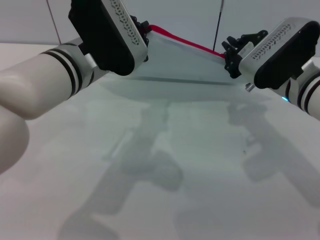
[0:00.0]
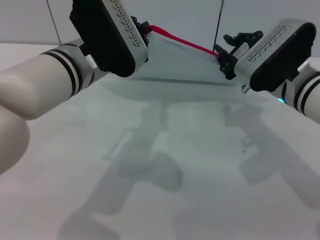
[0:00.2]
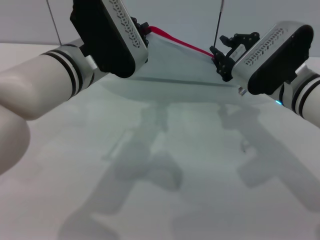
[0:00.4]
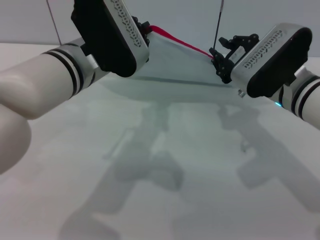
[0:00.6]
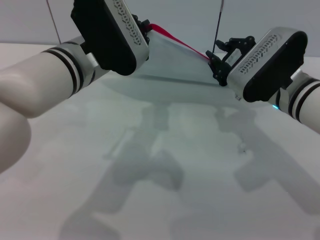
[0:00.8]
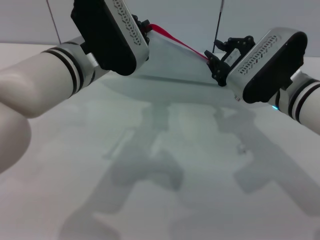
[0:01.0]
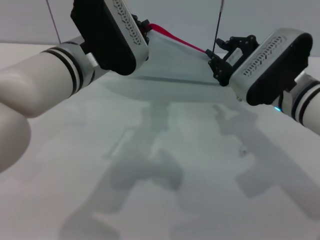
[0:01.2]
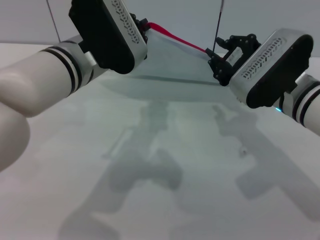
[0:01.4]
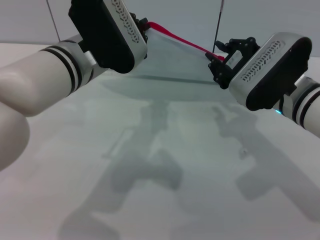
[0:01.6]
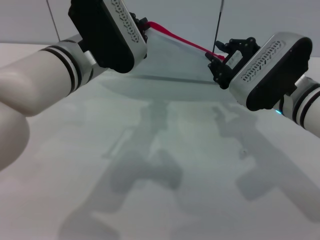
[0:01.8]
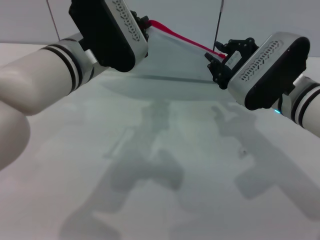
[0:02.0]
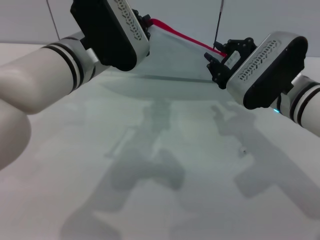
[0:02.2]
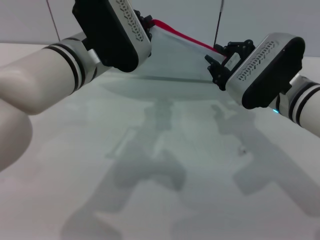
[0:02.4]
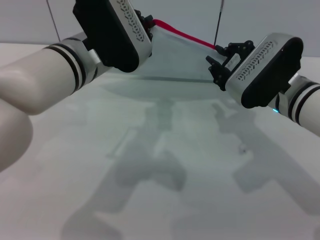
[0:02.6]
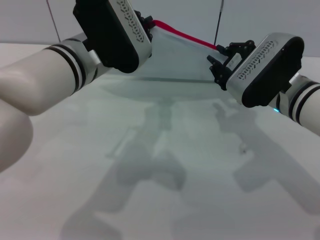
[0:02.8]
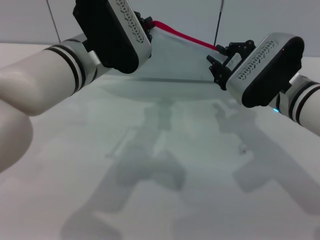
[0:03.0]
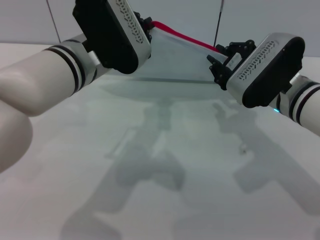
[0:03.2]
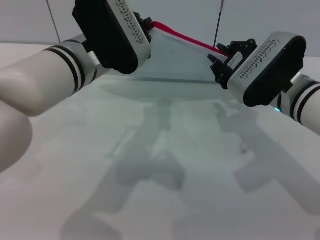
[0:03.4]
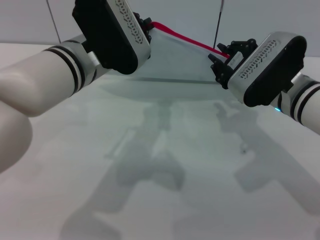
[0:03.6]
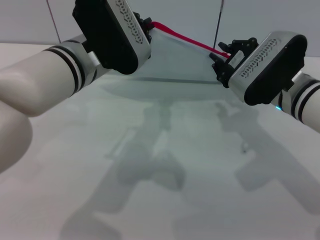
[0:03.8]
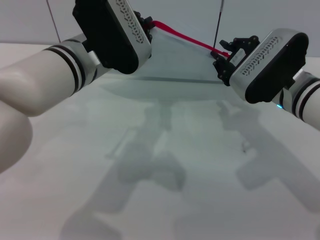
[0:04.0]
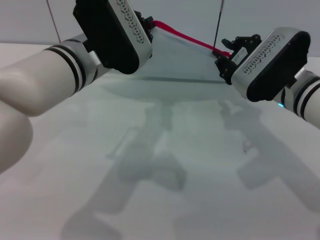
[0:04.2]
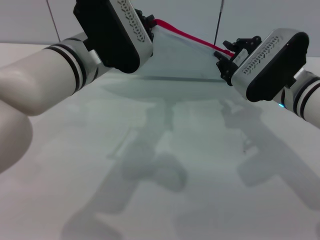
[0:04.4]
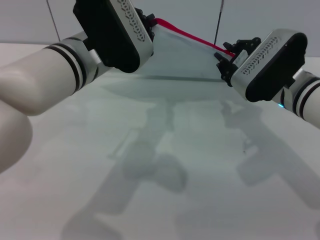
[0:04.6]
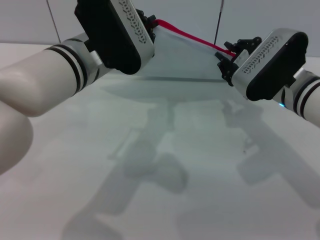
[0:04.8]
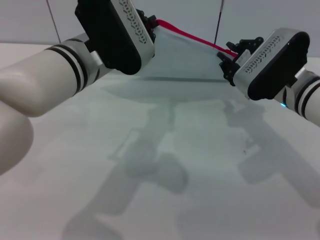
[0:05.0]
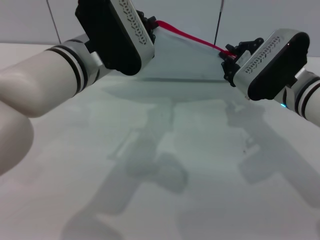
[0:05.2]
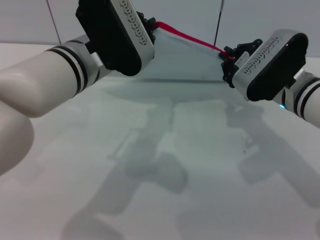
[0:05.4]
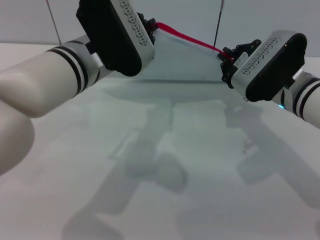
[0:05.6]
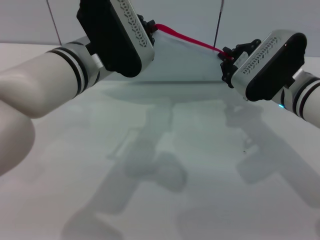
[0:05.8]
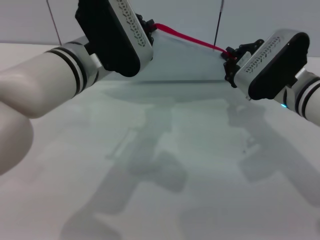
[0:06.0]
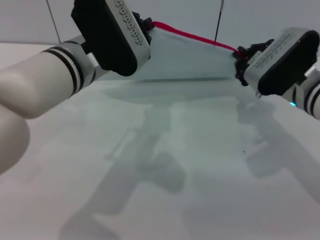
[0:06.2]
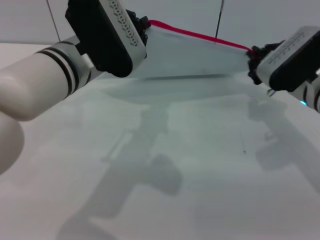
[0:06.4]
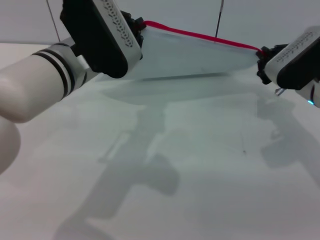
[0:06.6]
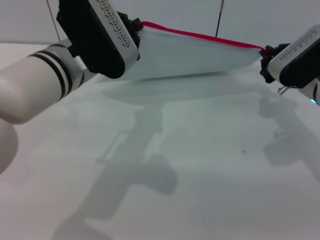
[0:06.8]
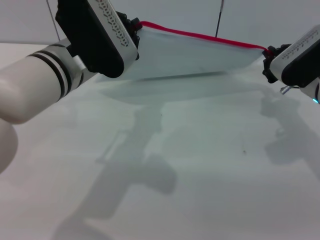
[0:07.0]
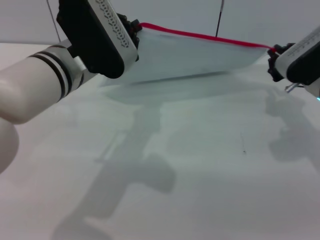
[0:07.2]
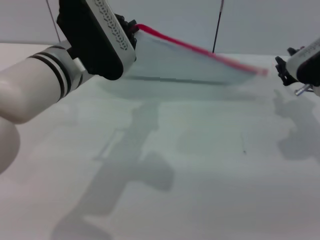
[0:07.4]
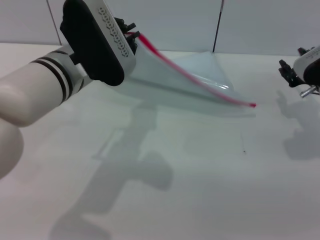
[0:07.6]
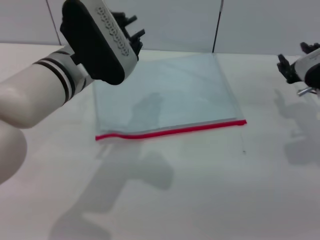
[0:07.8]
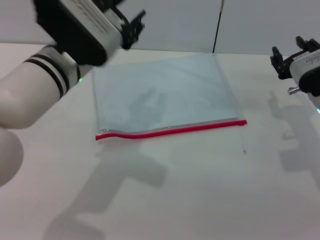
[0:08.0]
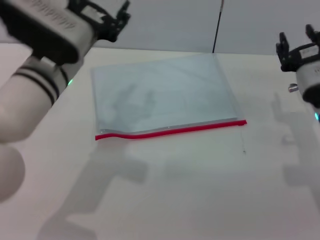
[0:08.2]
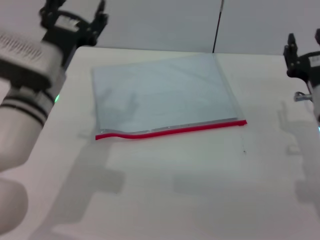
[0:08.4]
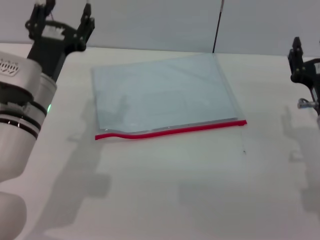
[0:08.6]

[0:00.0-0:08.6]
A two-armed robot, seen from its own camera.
Step, 0:00.0 to 0:07.2: Pulling up the zipper on the transparent plastic bag with the right gripper to close it.
Step, 0:07.4 to 0:07.8: Place the transparent plastic bag.
0:00.0 to 0:02.8: The grippers move only a little.
0:02.8 to 0:04.4: Both grippers stay about where they are.
0:04.4 to 0:05.8: Neither gripper changes place.
0:05.8 to 0:07.2: The right gripper moves to the right, about 5 cm.
0:07.2 to 0:08.6: The left gripper is displaced downward and to the left by some 10 cm, and opens, while the right gripper shifts some 10 cm backward, and opens its fingers.

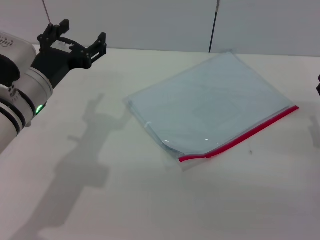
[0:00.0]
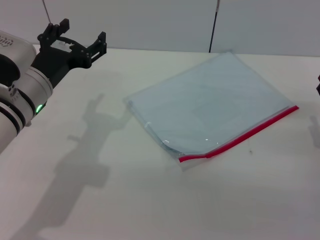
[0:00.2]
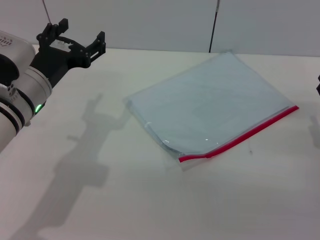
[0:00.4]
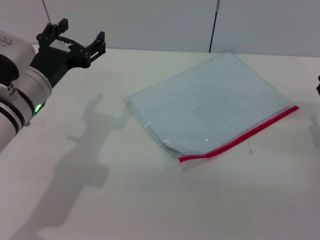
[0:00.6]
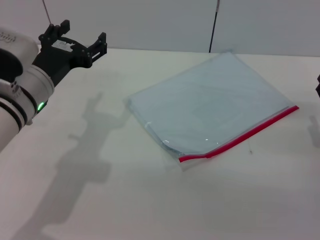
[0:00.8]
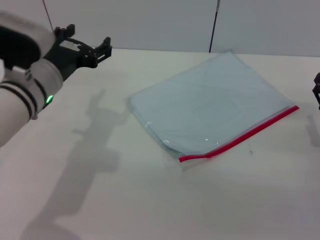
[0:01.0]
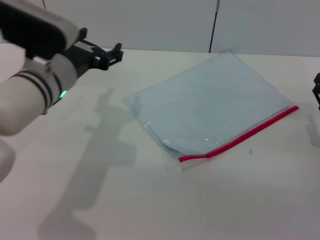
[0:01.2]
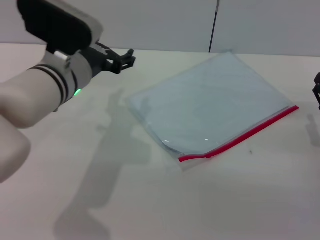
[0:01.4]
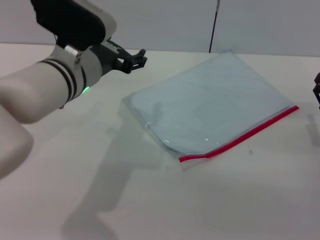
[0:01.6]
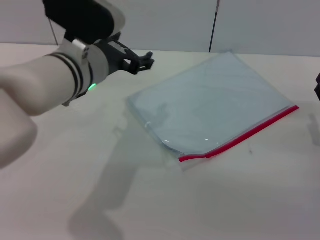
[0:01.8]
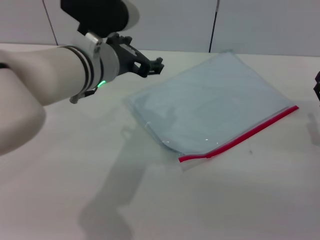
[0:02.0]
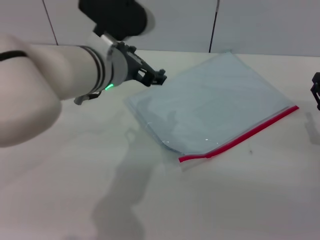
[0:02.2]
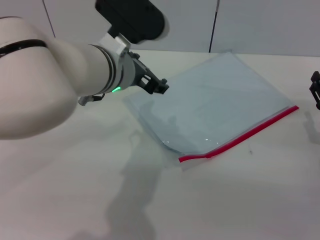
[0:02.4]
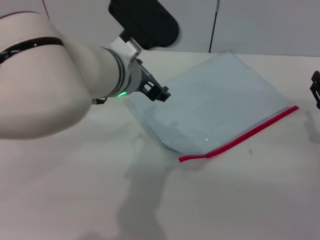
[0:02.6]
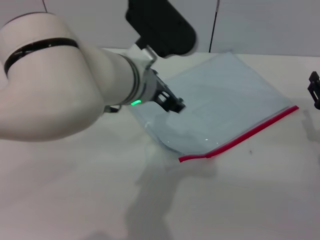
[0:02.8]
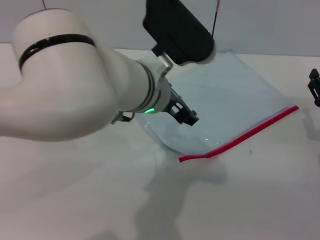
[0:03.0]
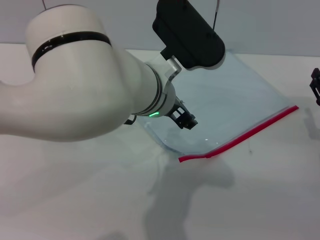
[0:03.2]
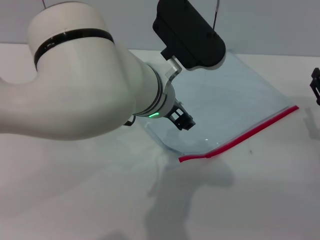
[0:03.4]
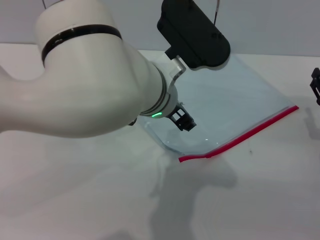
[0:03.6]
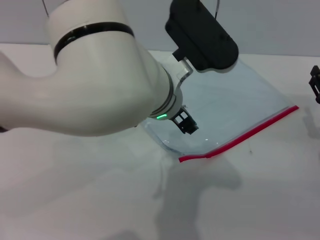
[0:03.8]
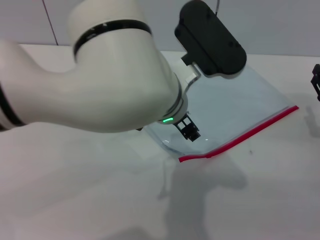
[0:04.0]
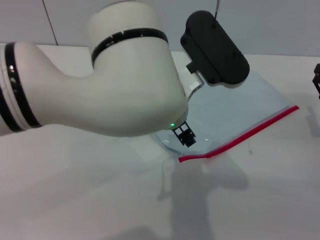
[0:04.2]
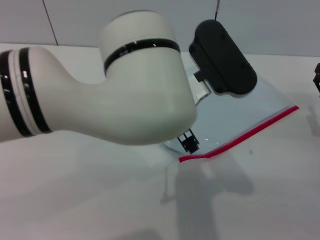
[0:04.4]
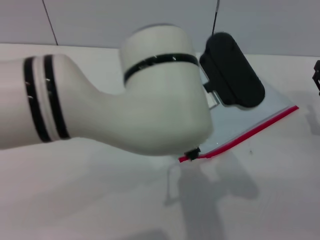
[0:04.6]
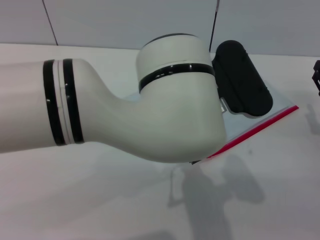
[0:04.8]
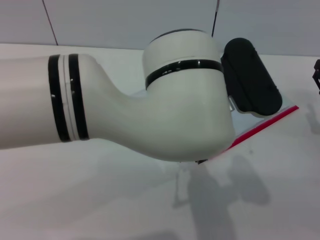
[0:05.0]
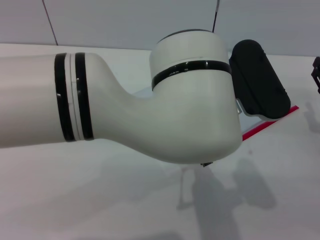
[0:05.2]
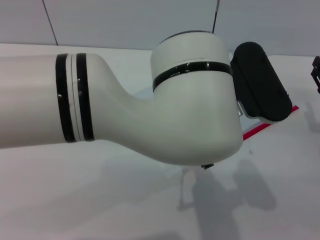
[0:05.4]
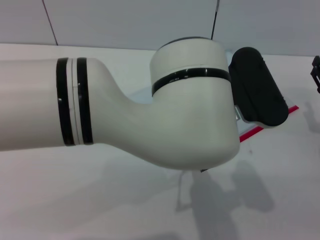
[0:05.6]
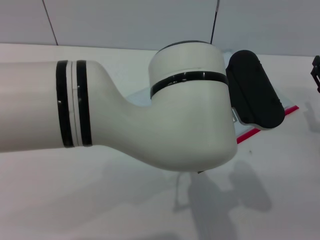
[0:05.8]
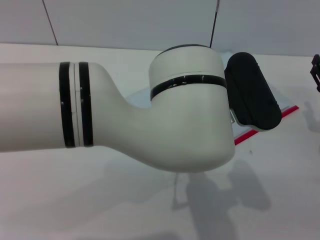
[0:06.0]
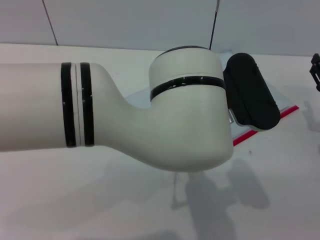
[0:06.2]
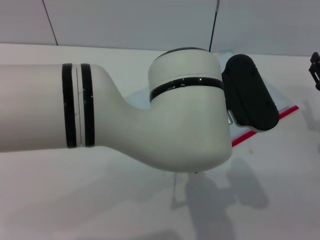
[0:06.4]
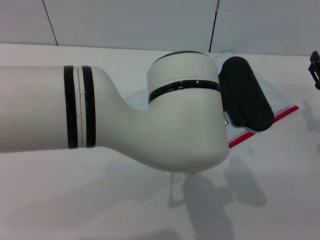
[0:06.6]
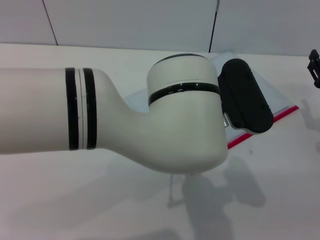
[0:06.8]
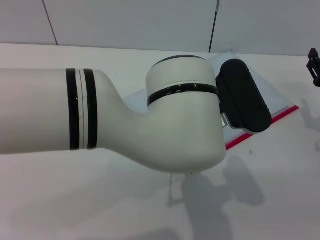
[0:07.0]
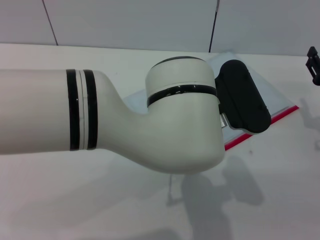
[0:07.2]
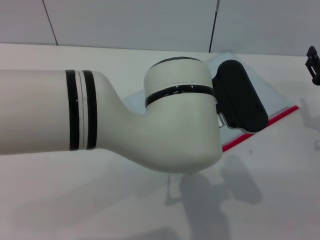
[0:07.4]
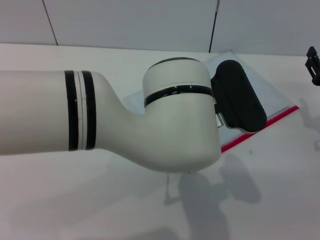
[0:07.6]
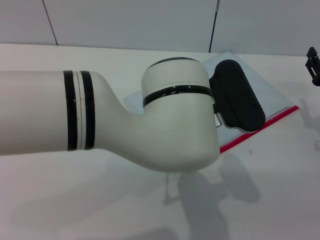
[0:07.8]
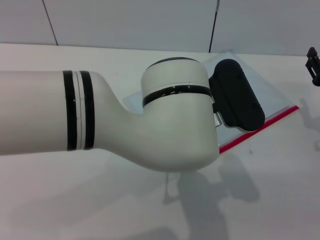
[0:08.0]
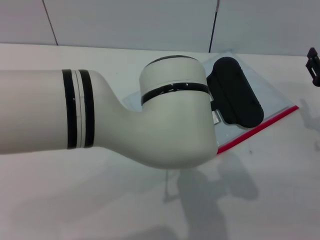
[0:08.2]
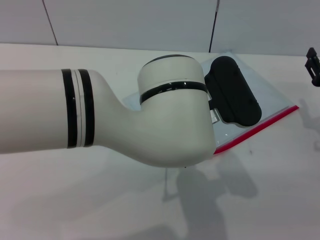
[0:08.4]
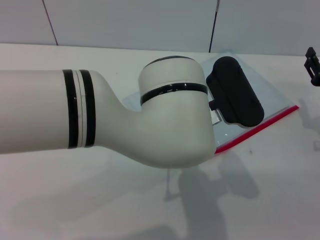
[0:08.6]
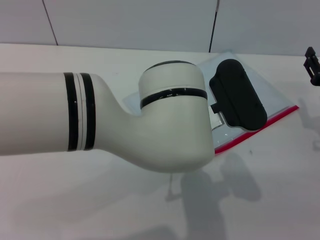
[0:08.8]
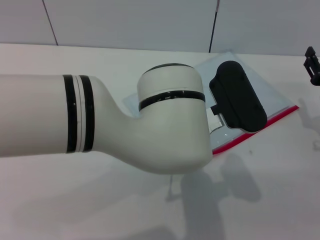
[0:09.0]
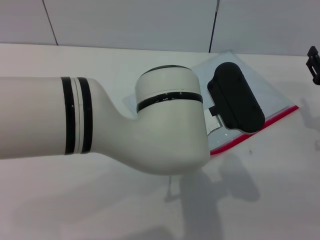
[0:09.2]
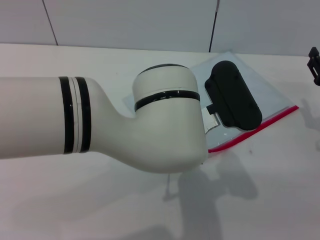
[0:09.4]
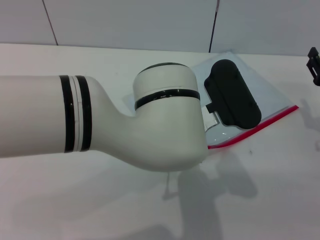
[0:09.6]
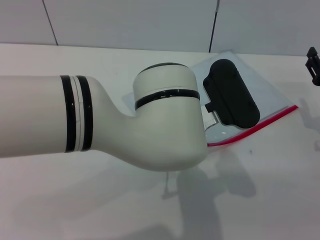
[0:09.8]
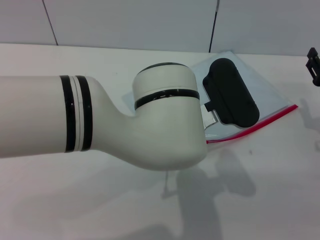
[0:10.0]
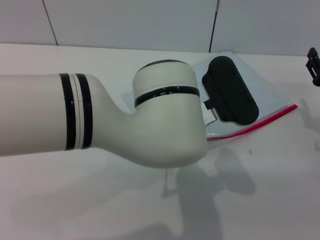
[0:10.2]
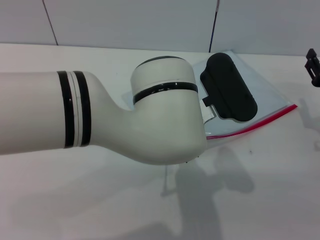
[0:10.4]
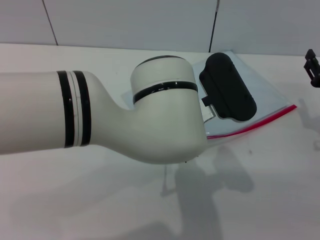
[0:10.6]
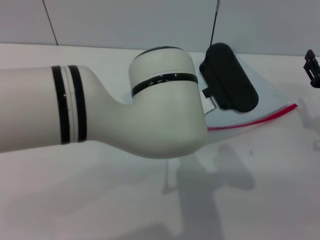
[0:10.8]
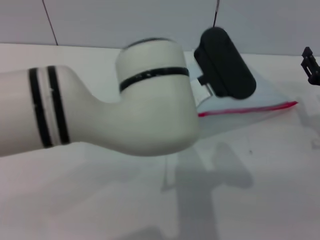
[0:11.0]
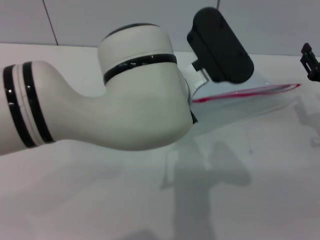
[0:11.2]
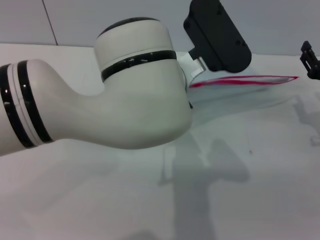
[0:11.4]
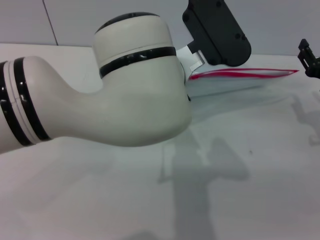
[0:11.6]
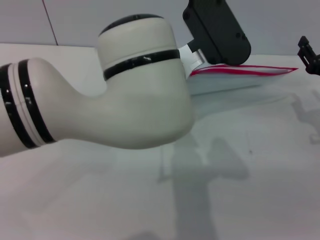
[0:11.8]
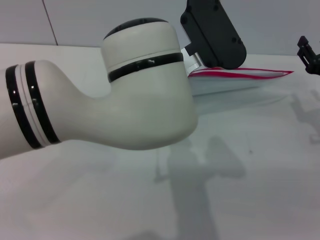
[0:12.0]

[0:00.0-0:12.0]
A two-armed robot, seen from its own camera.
0:00.0 to 0:01.6: The left gripper shifts roughly 5 cm to the right.
0:01.6 to 0:03.0: The left gripper travels to the right by some 10 cm.
0:06.0 to 0:07.6: The grippers stay close to where they were, moving slightly.
0:07.6 to 0:09.0: Neither gripper changes place.
0:09.0 to 0:10.4: The left gripper closes its fingers.
0:10.4 to 0:12.0: The left gripper travels upward by about 5 cm.

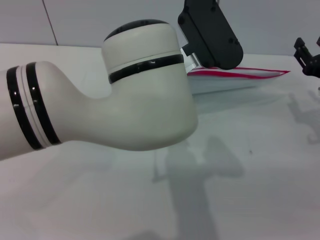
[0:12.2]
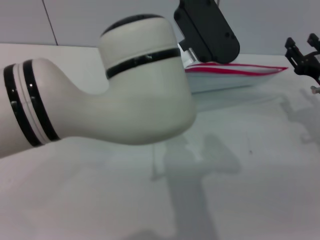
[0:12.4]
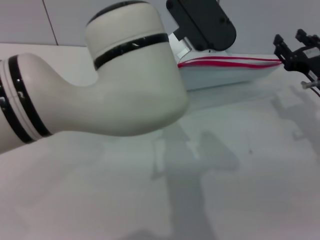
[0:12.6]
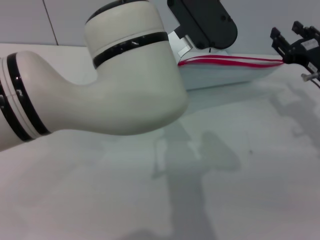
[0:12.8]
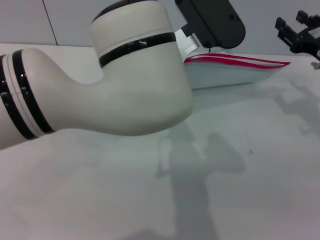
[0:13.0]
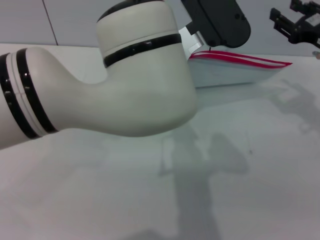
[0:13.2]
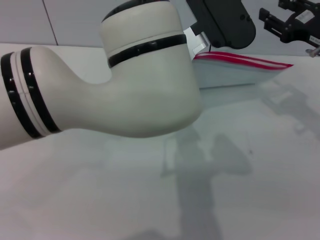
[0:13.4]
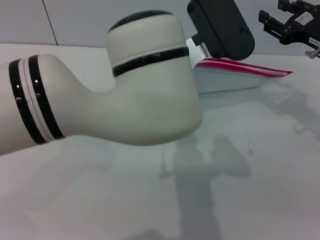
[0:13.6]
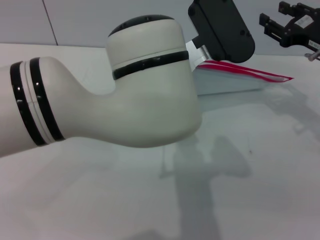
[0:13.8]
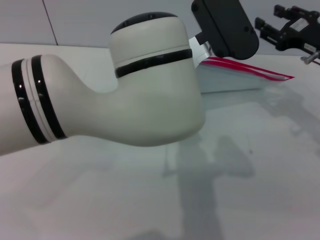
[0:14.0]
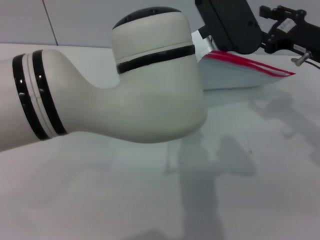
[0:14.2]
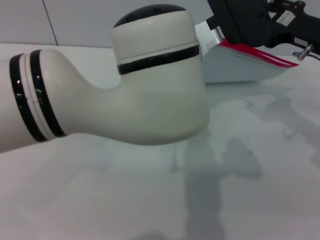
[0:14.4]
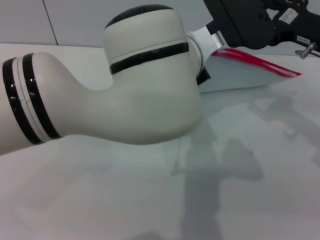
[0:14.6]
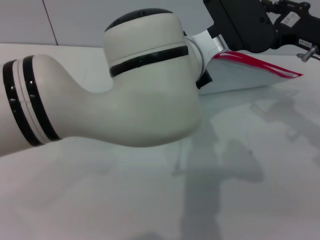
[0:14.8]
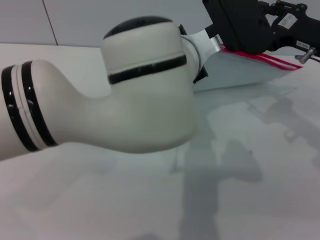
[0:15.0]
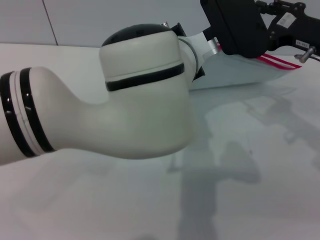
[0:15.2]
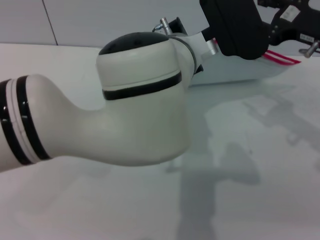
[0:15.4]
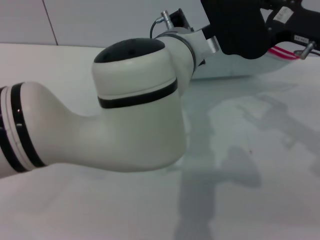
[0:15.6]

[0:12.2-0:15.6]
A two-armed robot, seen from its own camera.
Step, 0:12.2 to 0:14.6: Pick up the transparent plastic bag with the left gripper.
0:12.2 to 0:13.8: The right gripper heads upward, covering some 5 cm.
0:13.8 to 0:15.6: The right gripper shifts by some 5 cm.
